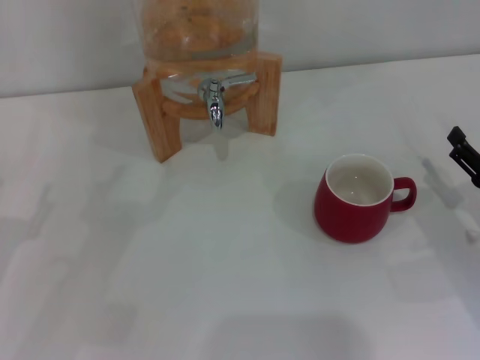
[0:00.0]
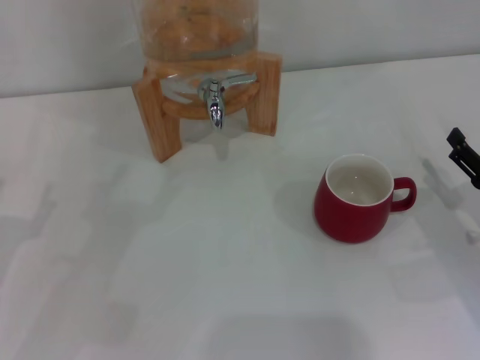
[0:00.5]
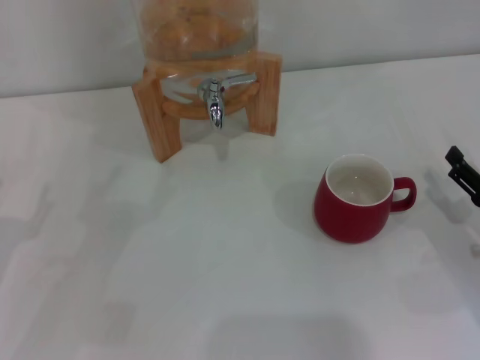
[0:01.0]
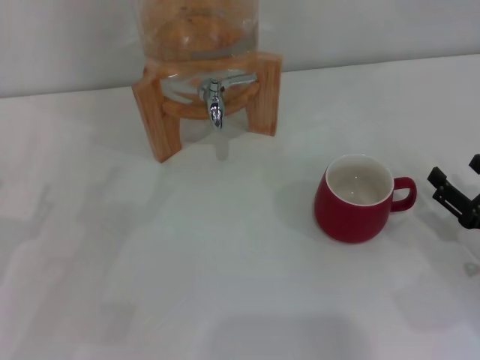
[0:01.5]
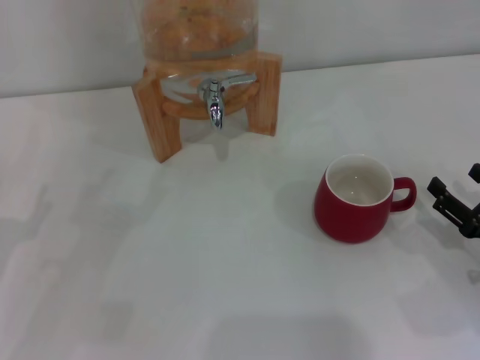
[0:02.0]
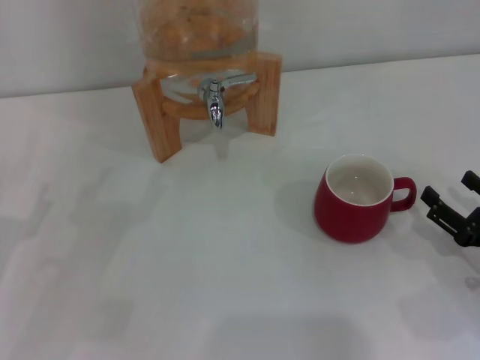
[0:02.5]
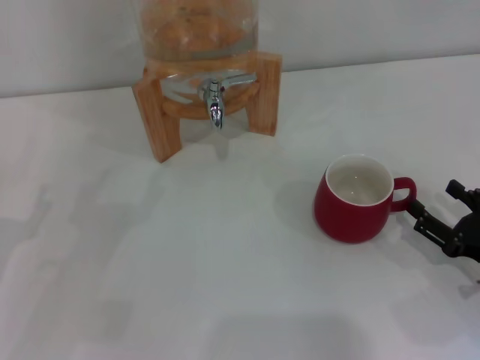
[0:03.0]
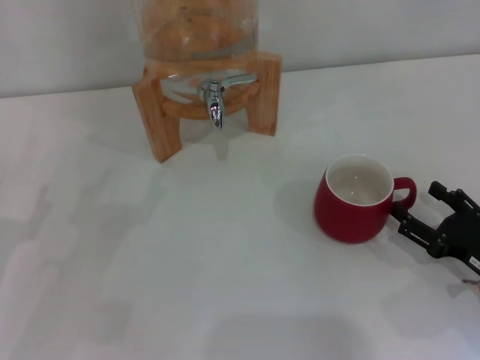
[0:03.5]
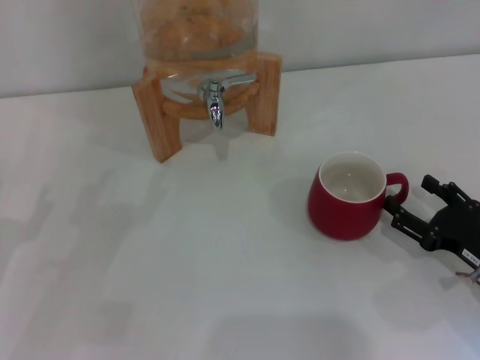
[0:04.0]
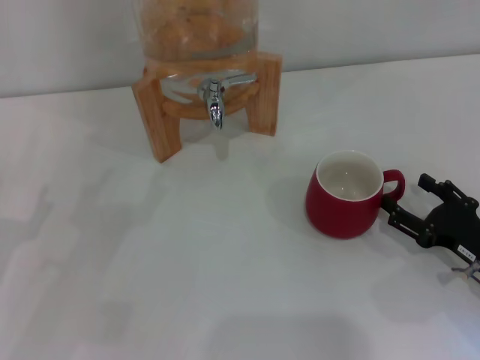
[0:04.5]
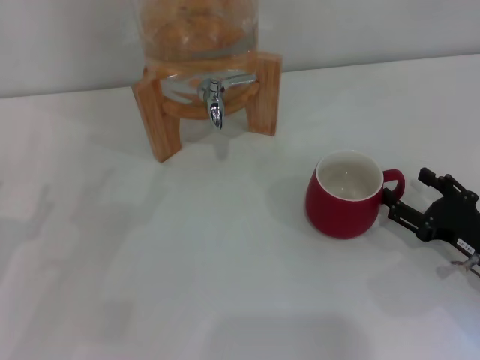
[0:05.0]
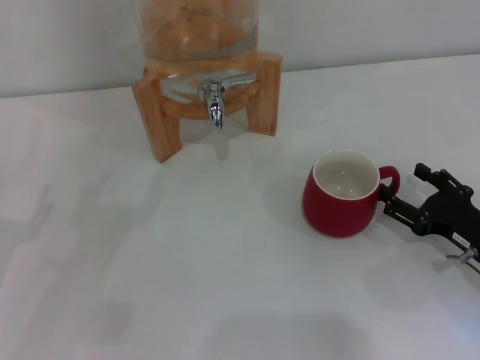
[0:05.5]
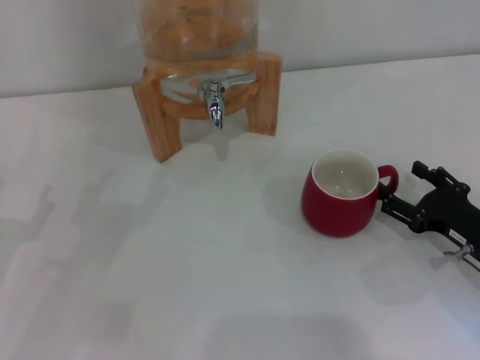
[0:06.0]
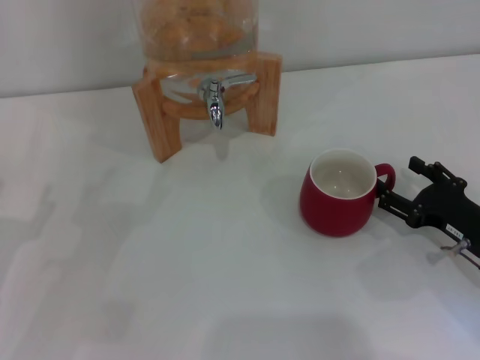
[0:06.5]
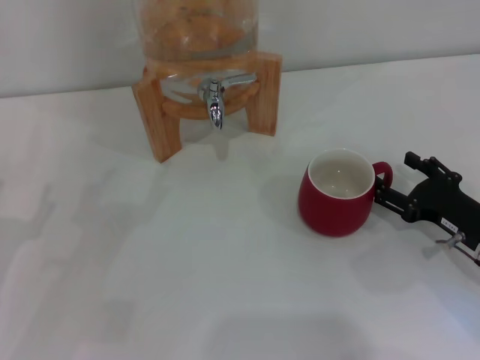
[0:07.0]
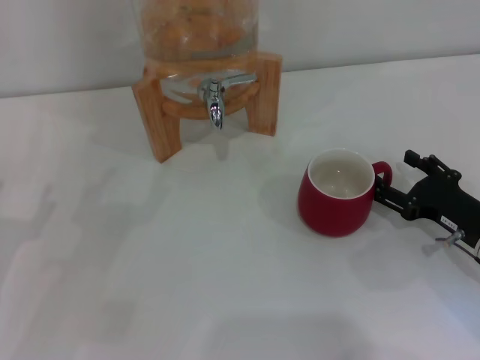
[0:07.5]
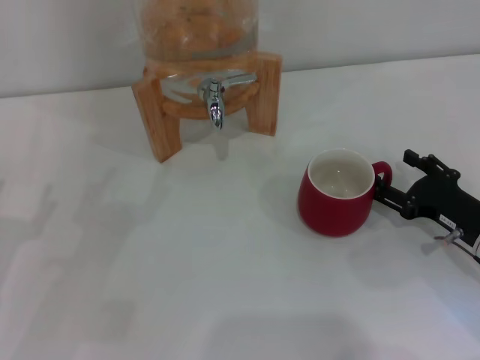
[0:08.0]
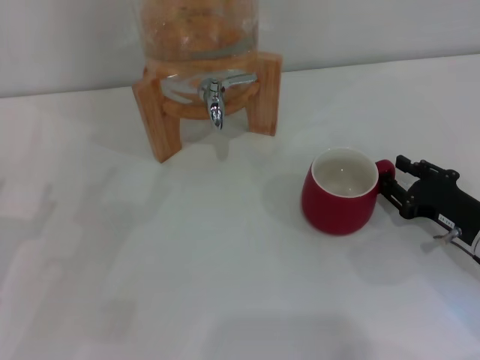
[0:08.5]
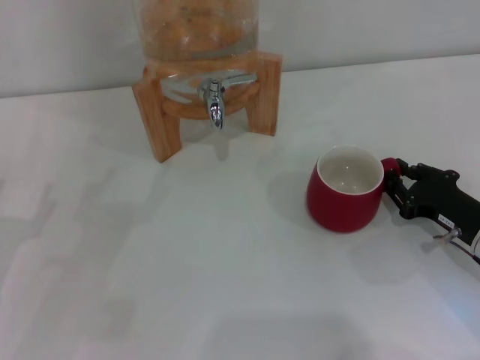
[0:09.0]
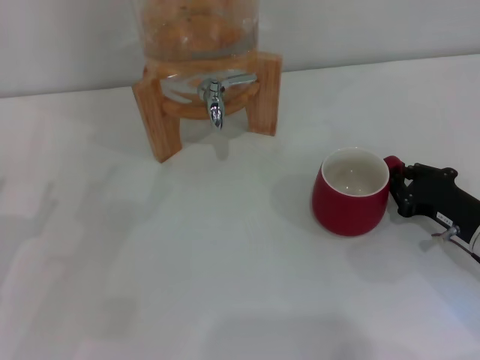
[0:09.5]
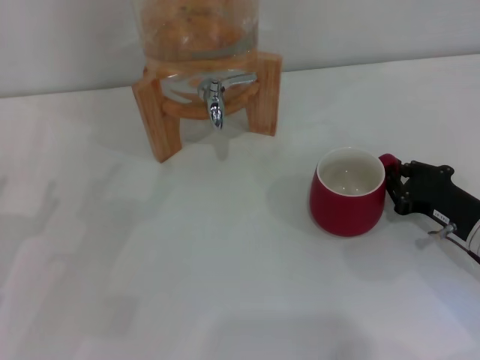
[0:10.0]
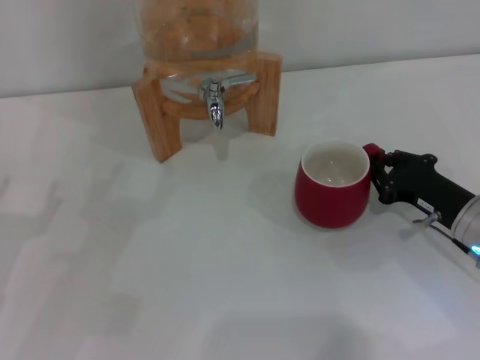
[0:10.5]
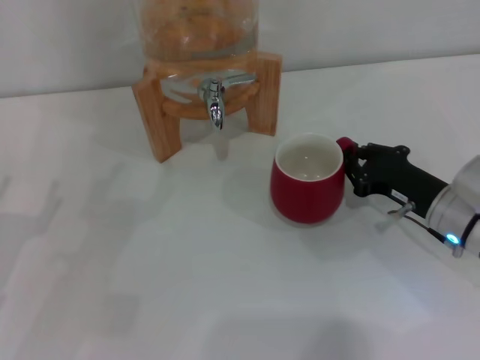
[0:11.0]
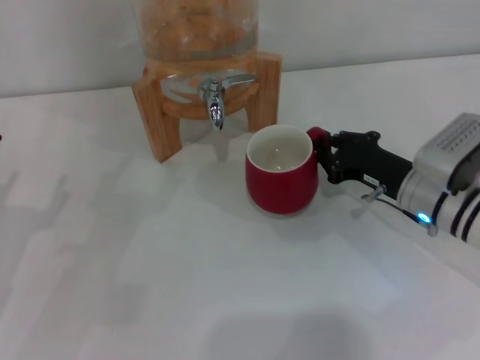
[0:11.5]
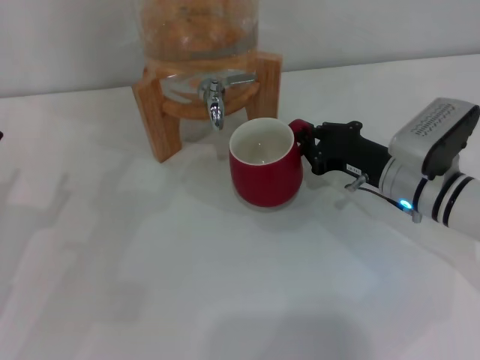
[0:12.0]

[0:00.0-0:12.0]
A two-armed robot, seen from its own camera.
Task of the whole recording: the right gripper pick up the red cup and place it horizontally under the faucet, the left gripper turn on the faucet to fill the cup, and then turn off the faucet.
0:00.0 to 0:04.0: The grippers move only a little.
0:04.0 to 0:08.0: There are only small adjustments of the grippers.
0:08.0 to 0:10.0: The right gripper closes its fingers.
0:10.0 to 0:12.0: The right gripper goes roughly 10 cm forward and to the left.

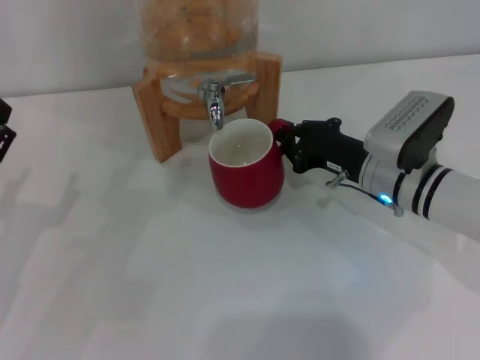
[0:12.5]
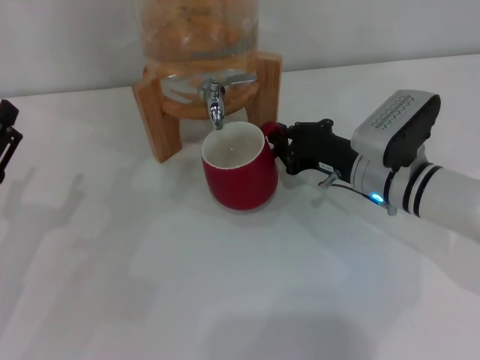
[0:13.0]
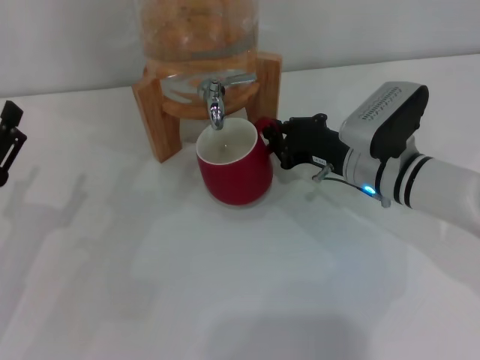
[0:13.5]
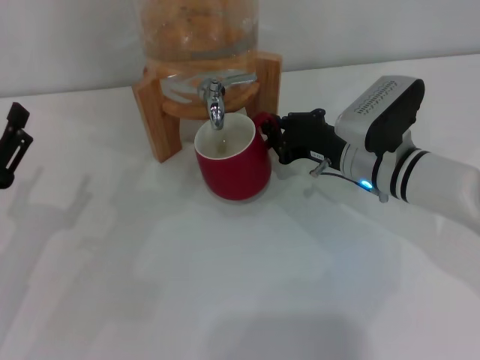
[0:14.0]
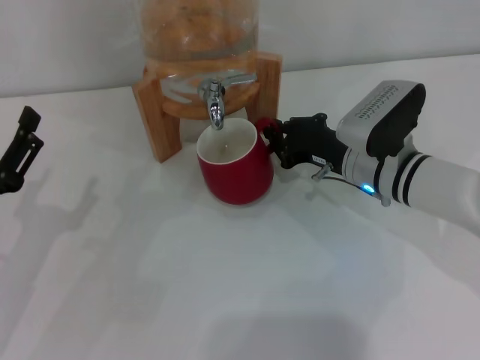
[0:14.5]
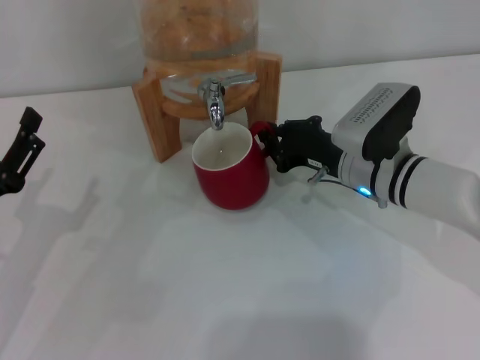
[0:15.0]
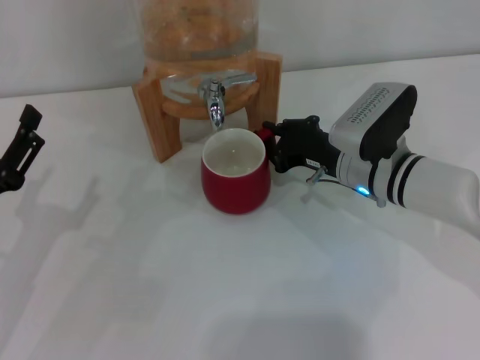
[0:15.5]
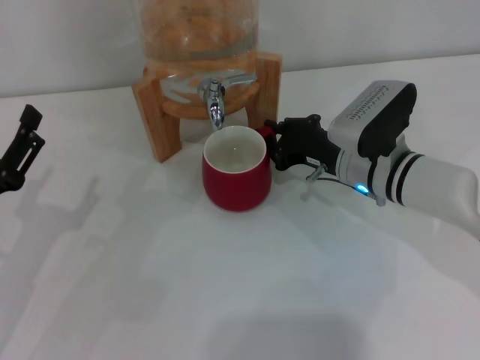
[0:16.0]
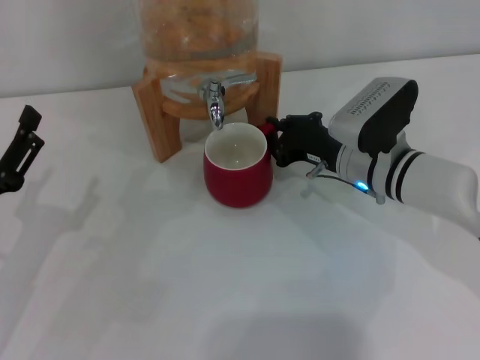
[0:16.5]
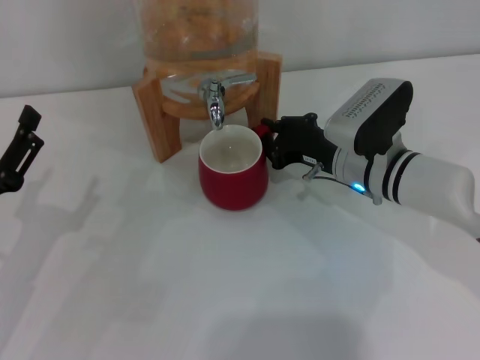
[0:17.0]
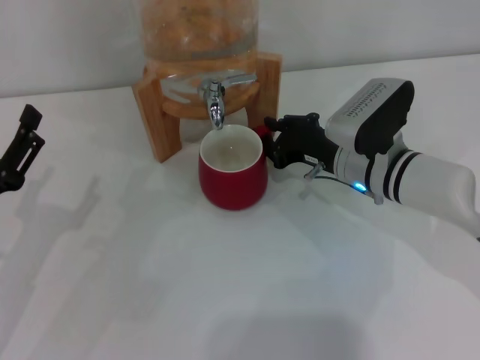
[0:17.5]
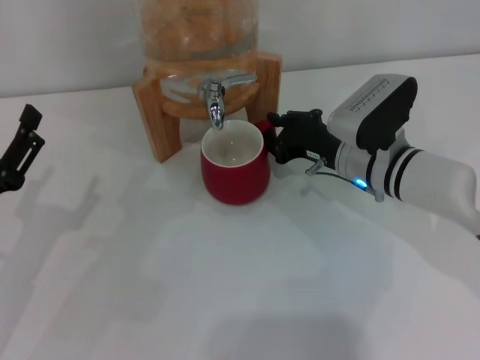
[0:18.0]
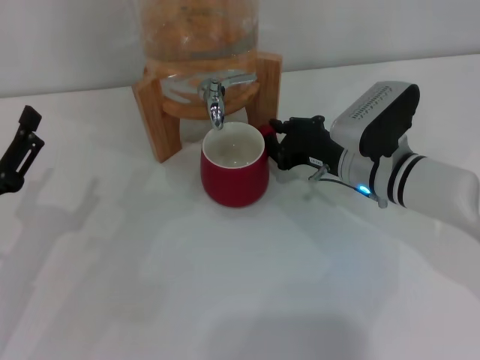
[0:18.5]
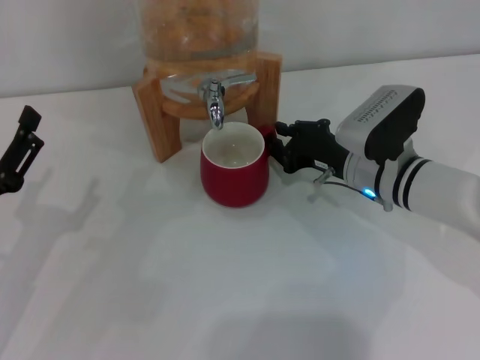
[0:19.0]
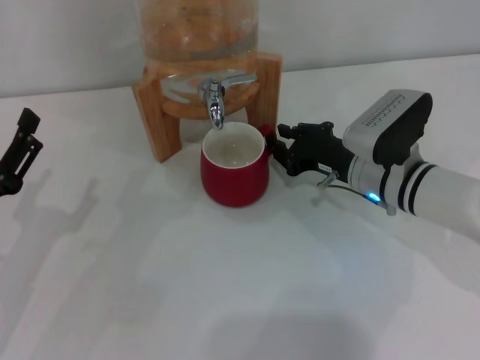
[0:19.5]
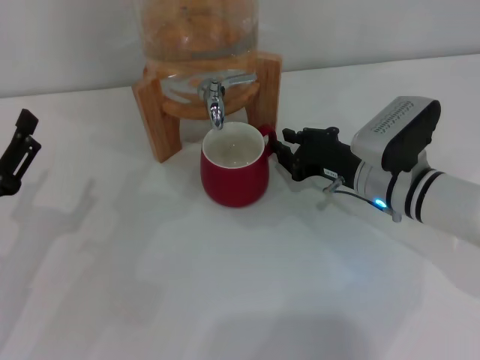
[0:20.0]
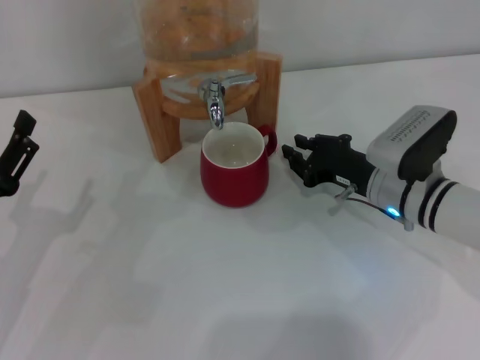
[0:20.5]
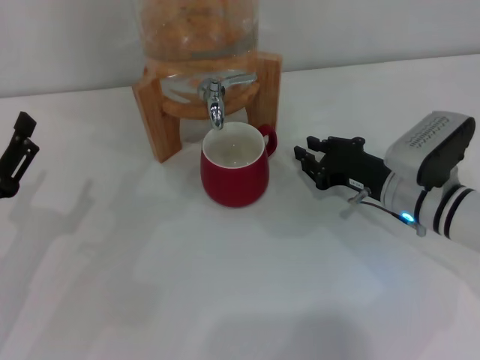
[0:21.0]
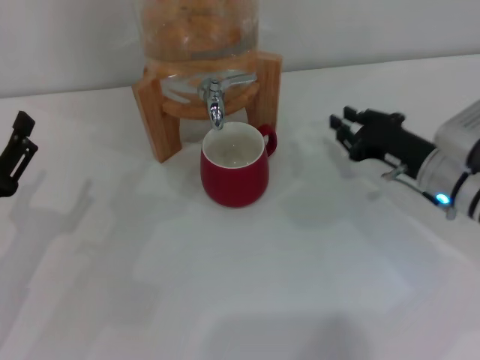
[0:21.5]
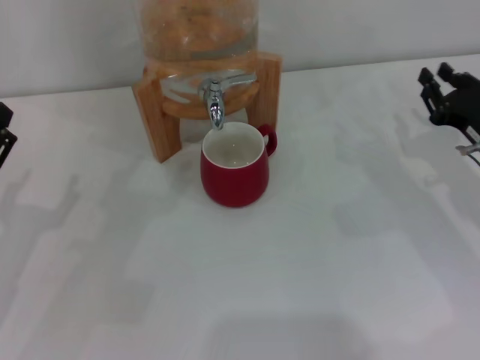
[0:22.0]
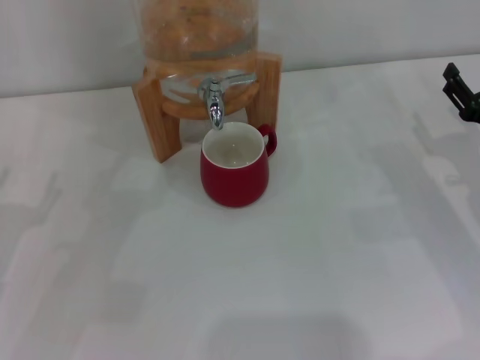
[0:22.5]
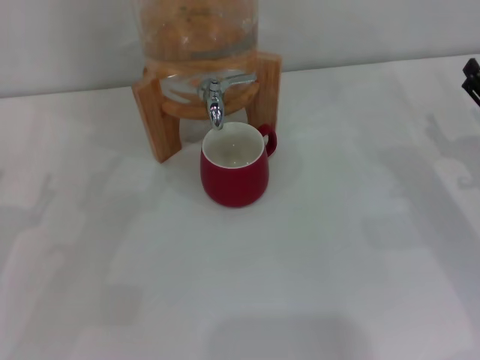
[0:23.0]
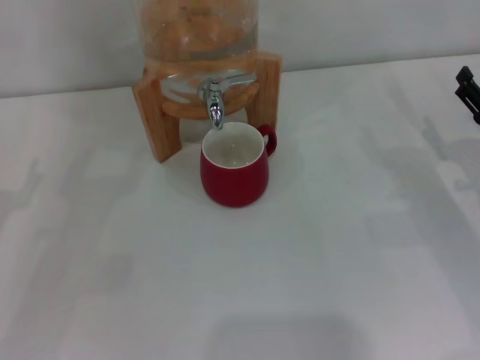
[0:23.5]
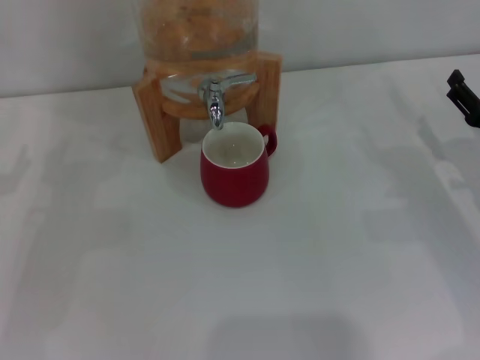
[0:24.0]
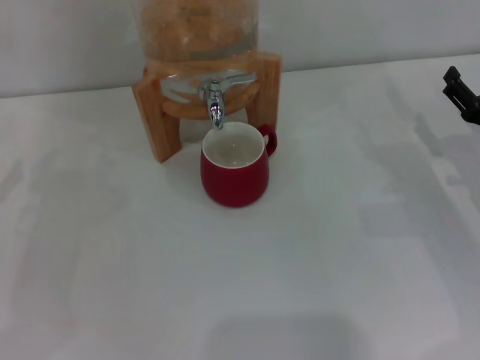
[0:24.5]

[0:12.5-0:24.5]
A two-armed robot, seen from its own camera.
Task of the whole recording: the right gripper pick up the red cup and place it horizontally under the faucet, the left gripper turn on the faucet to fill the cup, and then turn off the faucet.
Step, 0:12.5 to 0:20.5: Move the cup beneath the water dispenser nozzle with the right gripper.
0:12.5 to 0:14.5: The grippers make only small movements.
0:14.5 to 0:18.5: Both grippers stay about where they are.
0:18.5 to 0:20.5: There are only small adjustments of the grippers.
0:20.5 to 0:22.5: The right gripper moves to the right, roughly 10 cm, and opens up.

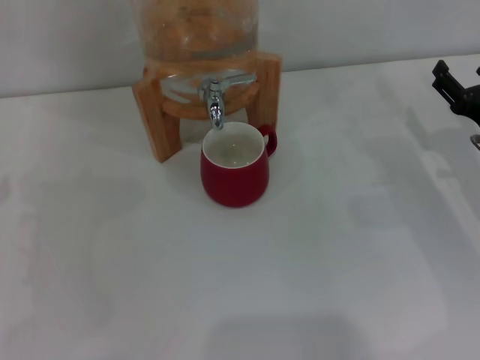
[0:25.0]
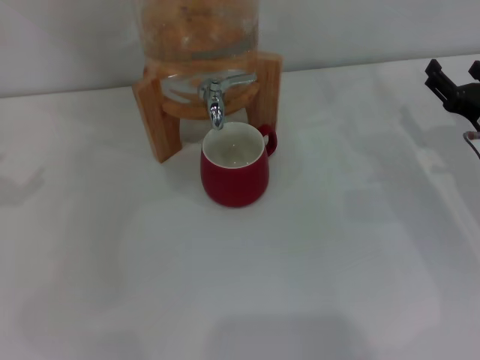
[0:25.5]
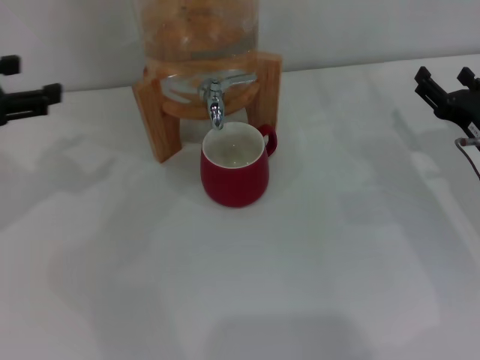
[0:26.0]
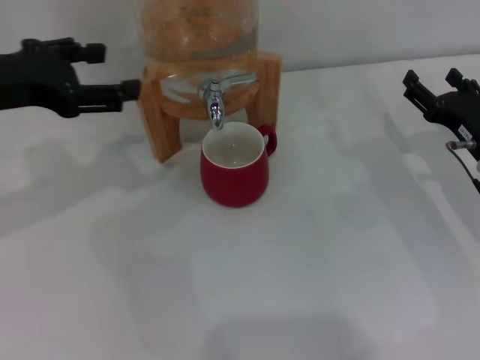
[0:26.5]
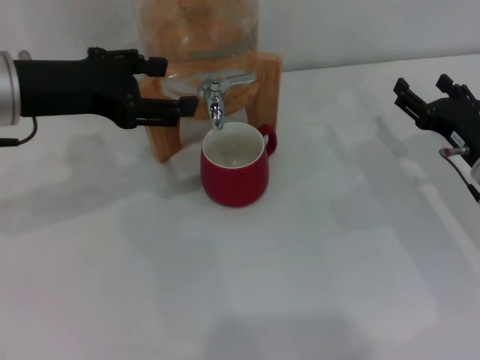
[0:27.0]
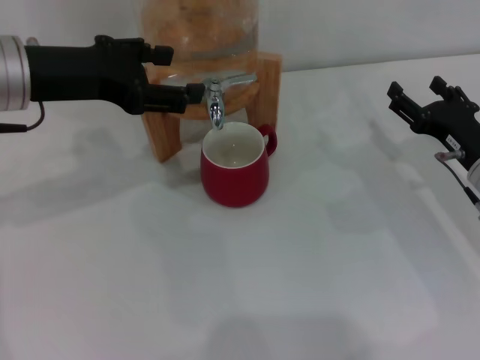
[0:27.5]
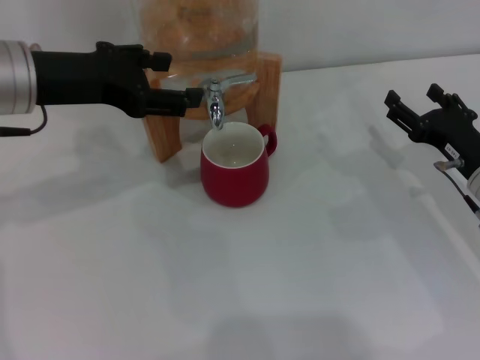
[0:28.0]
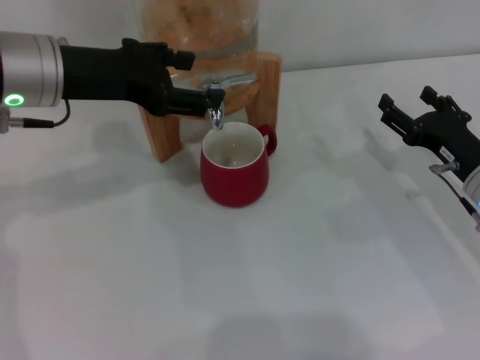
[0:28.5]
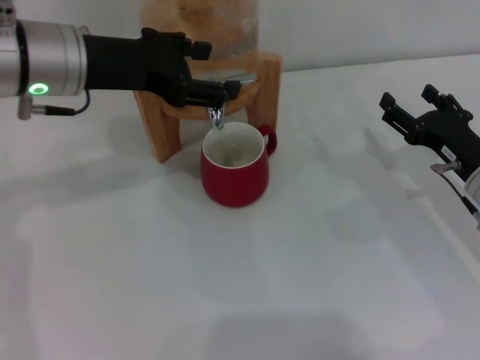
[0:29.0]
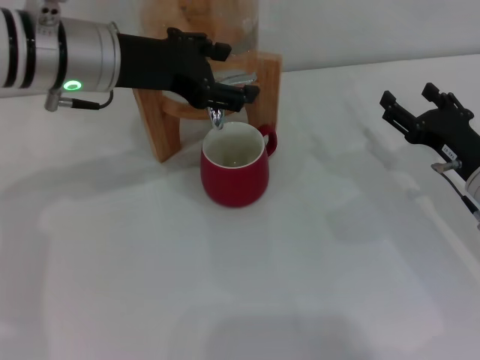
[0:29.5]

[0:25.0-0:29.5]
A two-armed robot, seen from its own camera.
Task of the whole recording: the right gripper pick up the red cup and place it horizontally under the faucet, the left gripper turn on the faucet to fill the cup, and then turn off the faucet.
0:25.0 to 0:27.0: The left gripper is displaced to the right by roughly 15 cm.
0:27.0 to 0:29.5: The left gripper shifts some 5 cm to the right.
